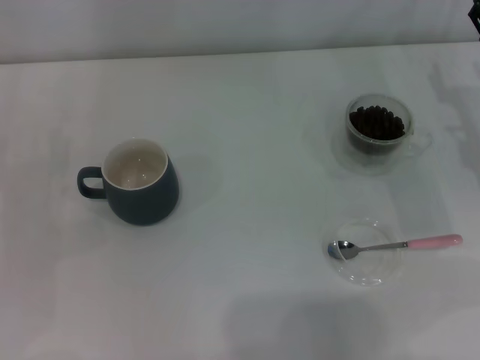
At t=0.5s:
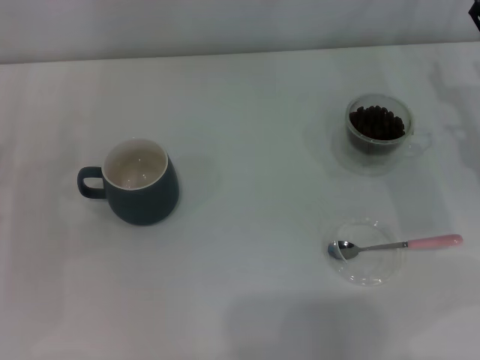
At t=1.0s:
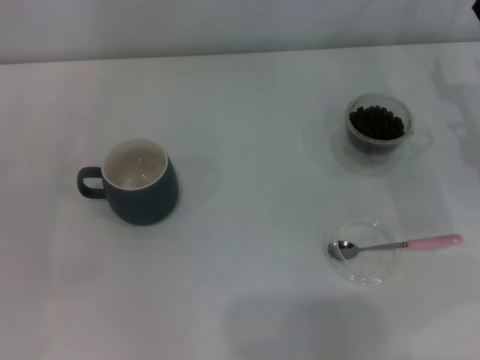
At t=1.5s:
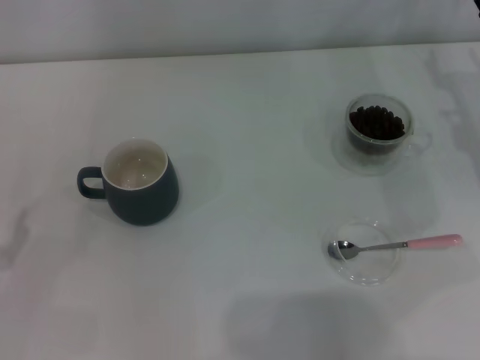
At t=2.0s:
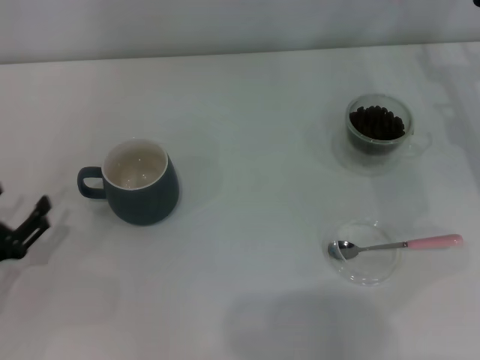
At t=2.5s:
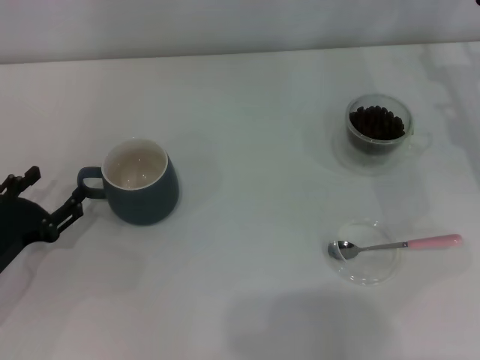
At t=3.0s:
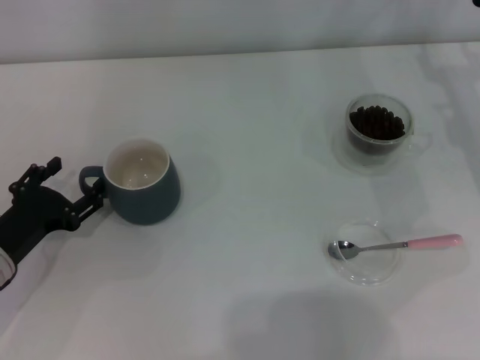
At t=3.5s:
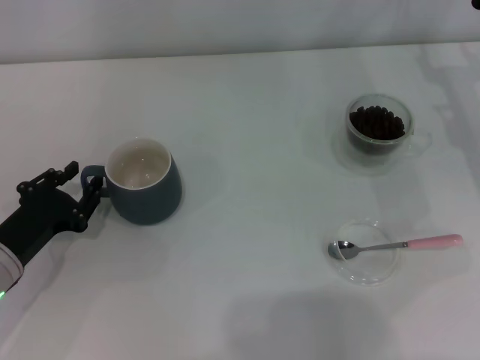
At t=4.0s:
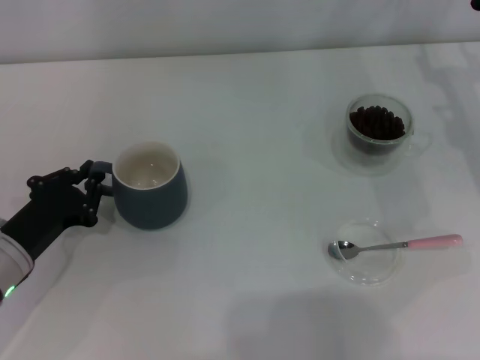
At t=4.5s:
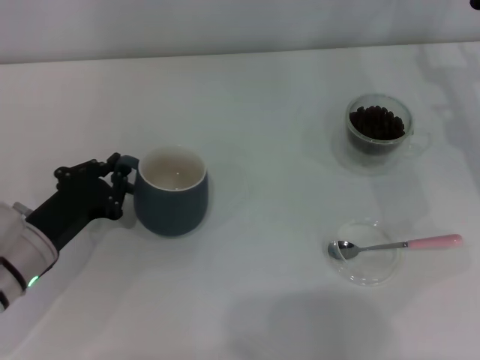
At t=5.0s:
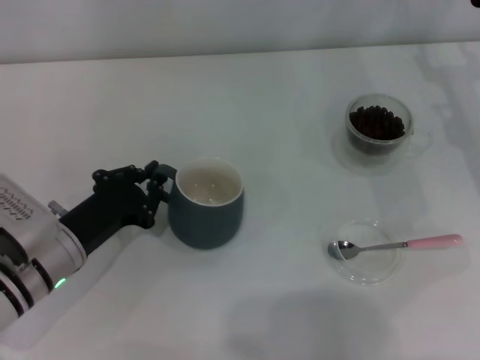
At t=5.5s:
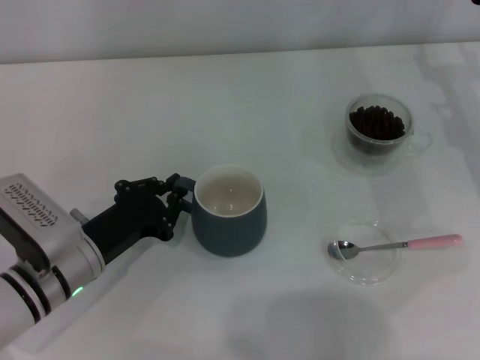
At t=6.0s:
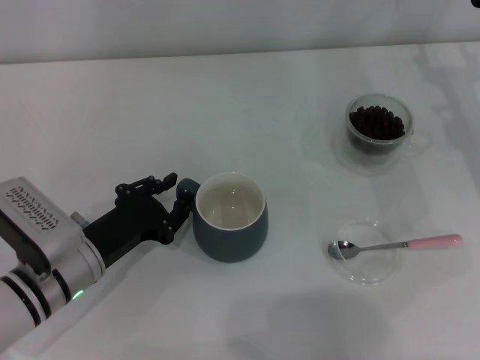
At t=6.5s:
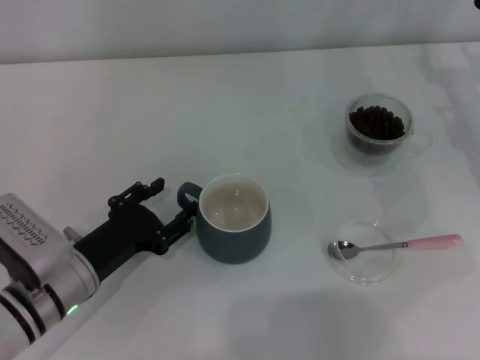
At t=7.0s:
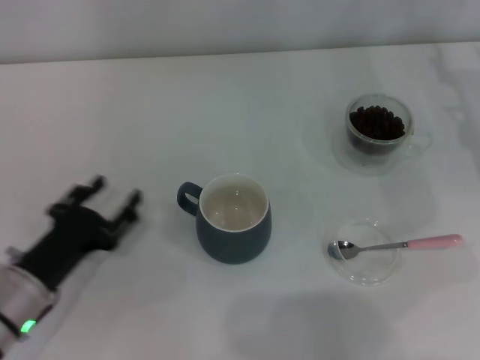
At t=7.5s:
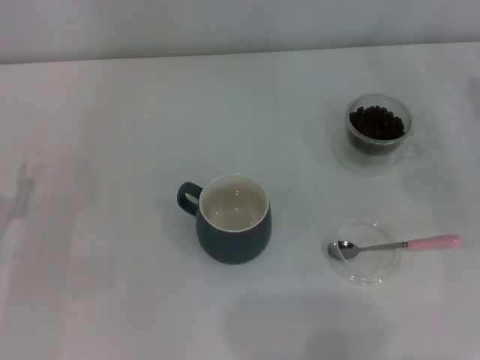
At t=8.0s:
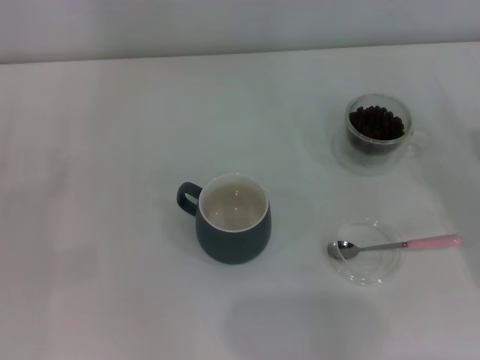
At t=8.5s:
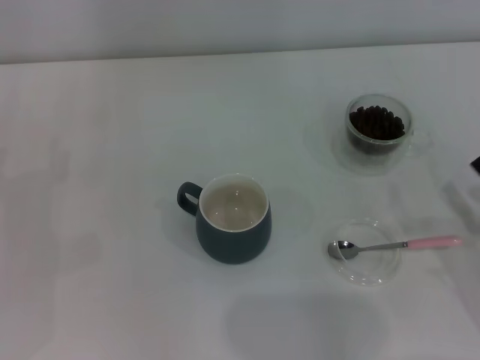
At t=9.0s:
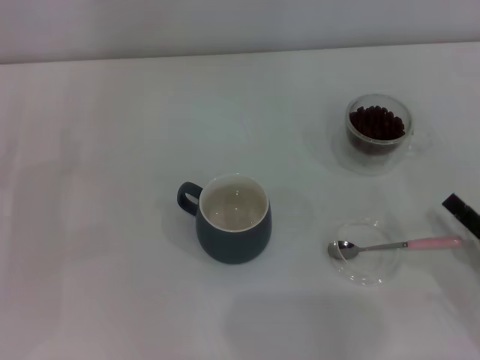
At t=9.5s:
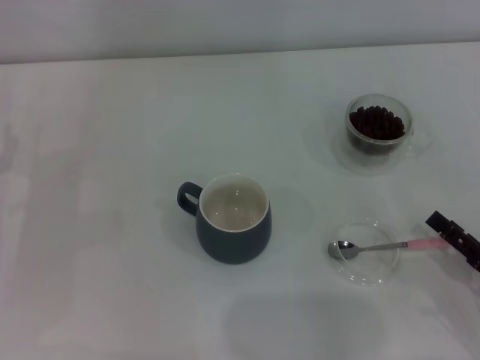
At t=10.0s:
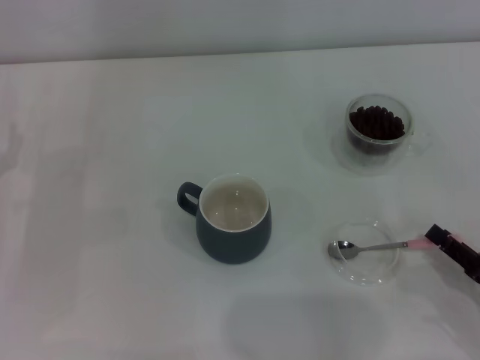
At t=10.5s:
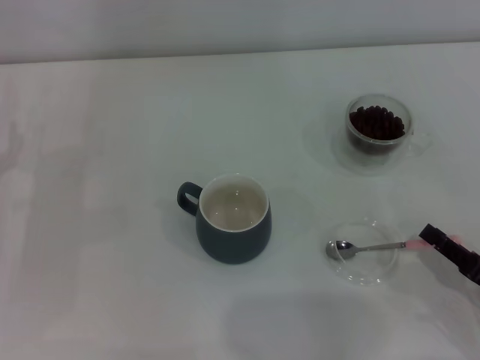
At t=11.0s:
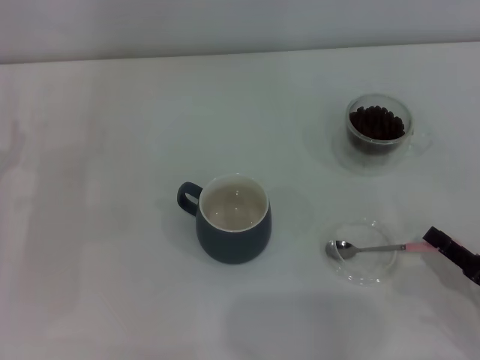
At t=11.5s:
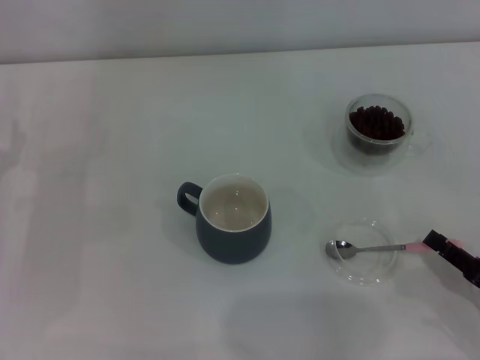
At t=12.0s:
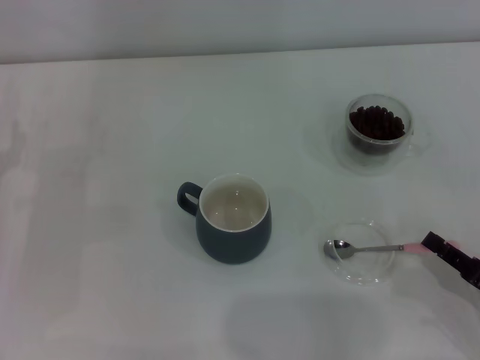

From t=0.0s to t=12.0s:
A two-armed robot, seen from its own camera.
Task of the whole recording: Use a pink spoon to take out the coffee beans from the glass and pour them into the gray cup.
Step, from t=0.0s to t=6.5s: Move the cup to the center of view with the left gripper.
From t=0.0s to t=2.0s: The left gripper travels backward by some 10 cm.
From t=2.0s to t=4.0s: The left gripper is displaced to the right and forward by roughly 10 cm, and closes up.
From t=4.0s to t=6.0s: The left gripper travels to the right by some 5 cm.
From t=6.0s to t=8.0s: The right gripper heads backward and downward, covering about 15 cm. The left gripper shifts about 15 cm to the left, and opens up.
From t=8.0s to t=10.0s: The right gripper shifts roughly 10 cm backward.
From t=10.0s to t=12.0s: The right gripper closes its fingers.

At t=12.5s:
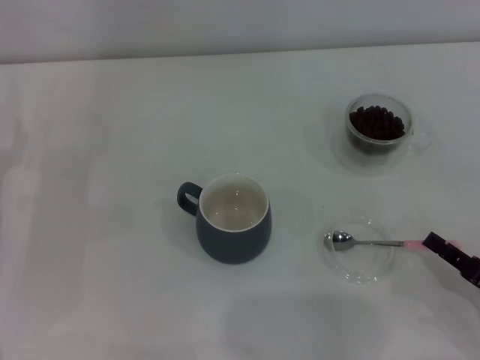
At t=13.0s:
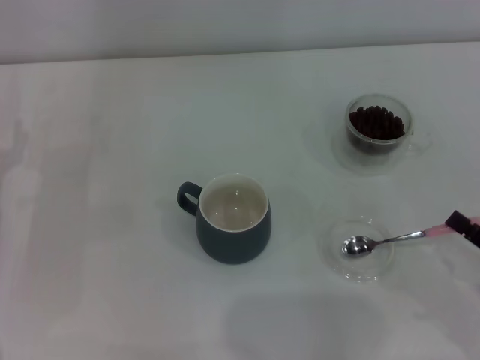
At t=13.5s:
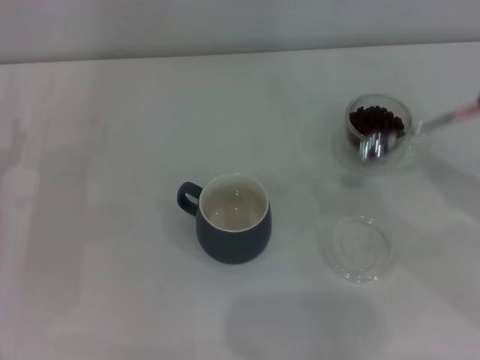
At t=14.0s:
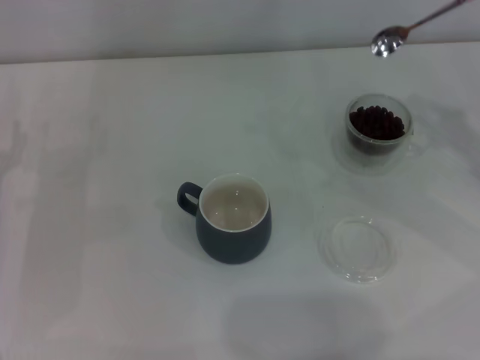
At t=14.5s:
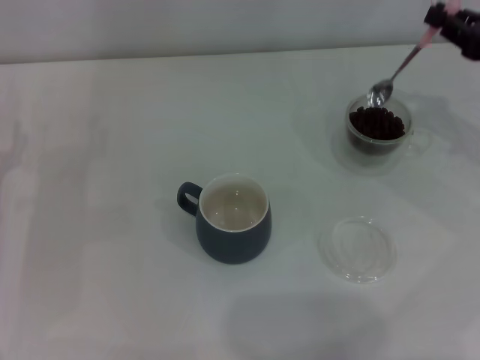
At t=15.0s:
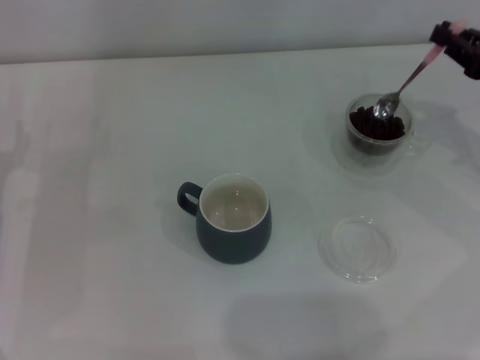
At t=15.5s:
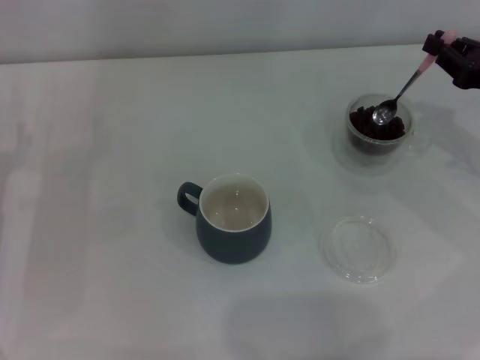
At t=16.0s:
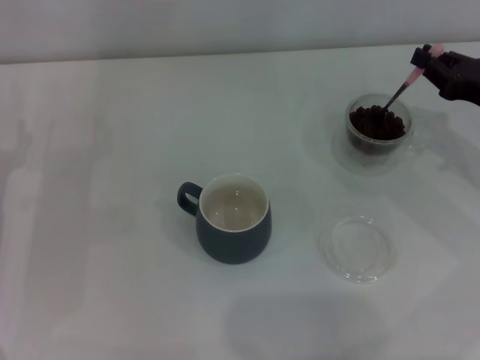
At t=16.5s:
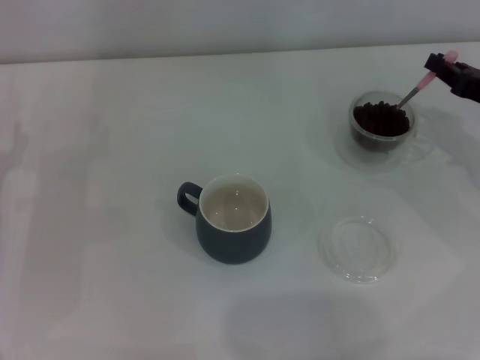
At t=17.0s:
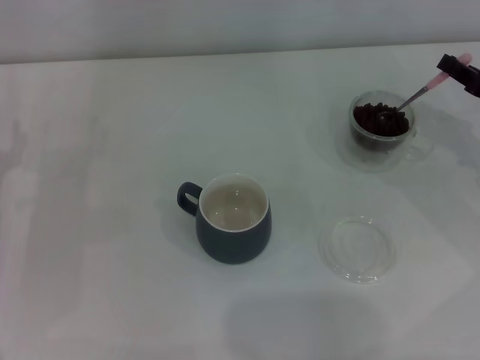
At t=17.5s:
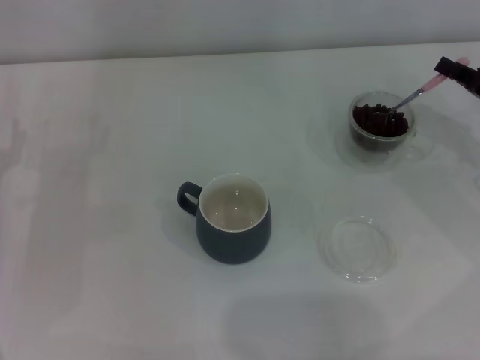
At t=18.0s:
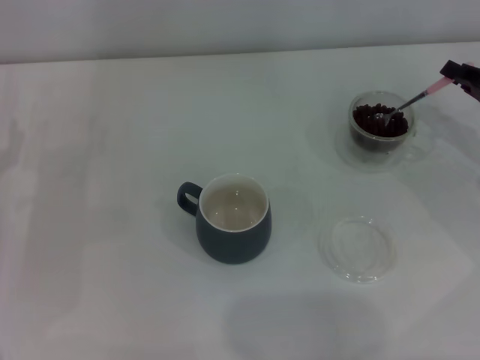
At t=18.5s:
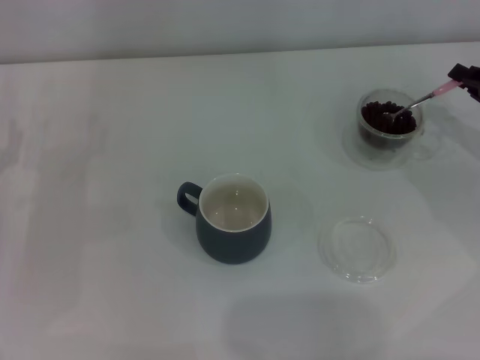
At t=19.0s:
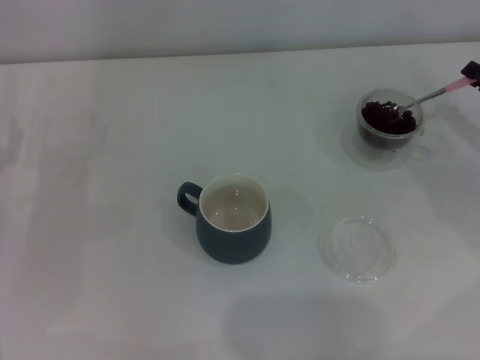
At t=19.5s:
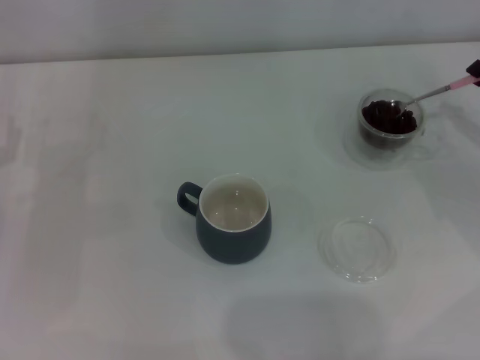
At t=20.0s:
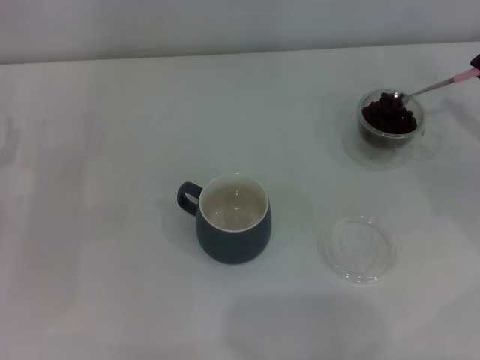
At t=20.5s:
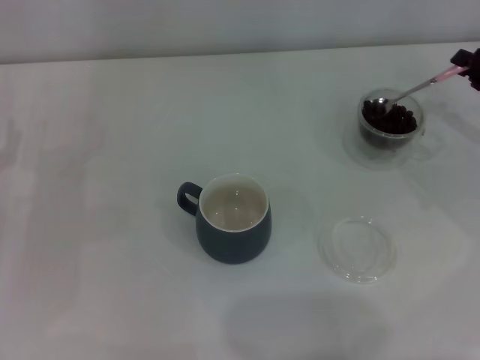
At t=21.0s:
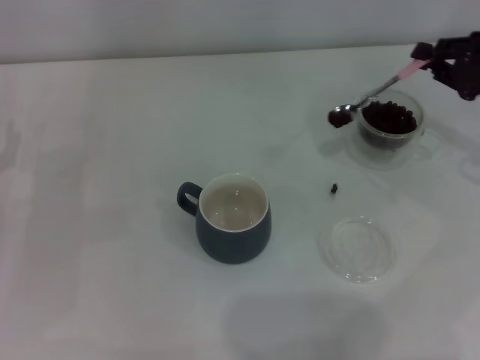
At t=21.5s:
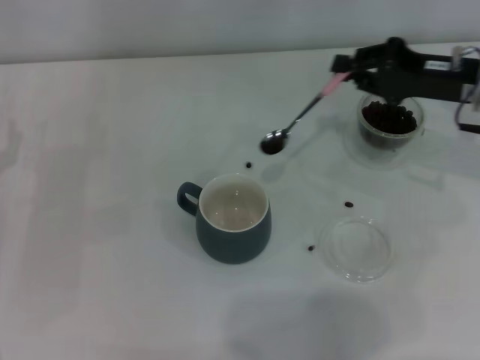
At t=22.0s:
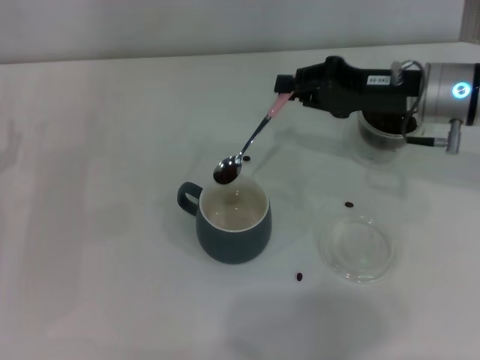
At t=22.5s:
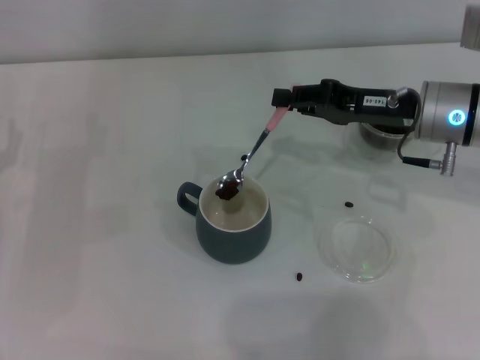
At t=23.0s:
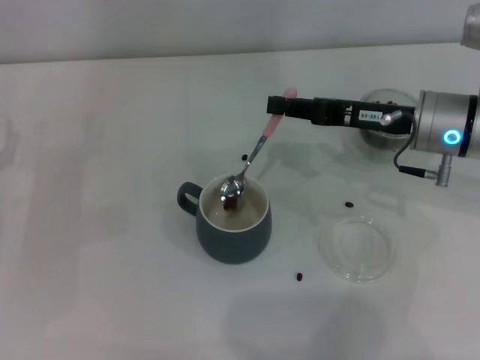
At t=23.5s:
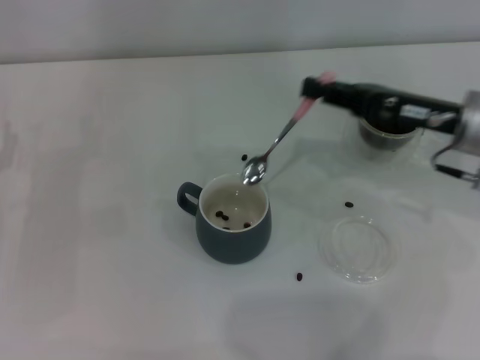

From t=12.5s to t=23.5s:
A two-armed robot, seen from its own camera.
Task of the whole recording: Use a pink spoon to take out the coffee beans from the glass and pour them into the gray cup.
Step, from t=13.5s to t=23.0s: Scoop a spoonful of beans into the cup with the right gripper.
From t=12.5s to t=14.5s: The right gripper shifts approximately 25 cm forward and upward.
From t=14.5s to t=16.0s: The grippers move only a little.
From t=18.0s to t=20.0s: The grippers make only small movements.
From t=20.0s to t=21.5s: The right gripper travels to the left and forward by approximately 10 cm.
From t=21.5s to t=23.5s: The right gripper changes place by some 5 cm.

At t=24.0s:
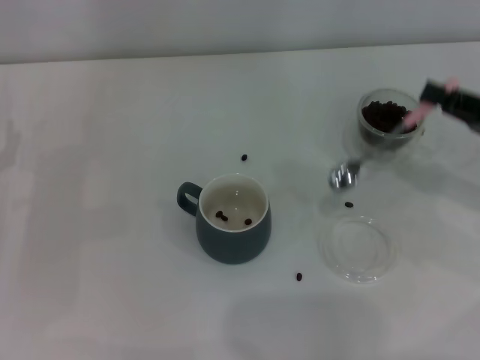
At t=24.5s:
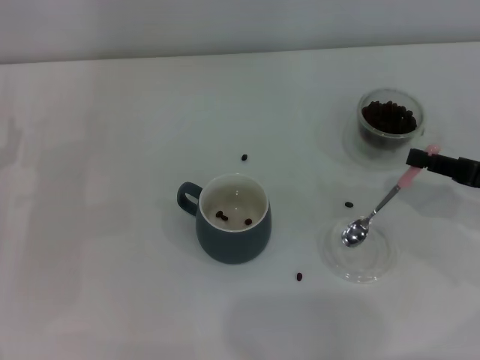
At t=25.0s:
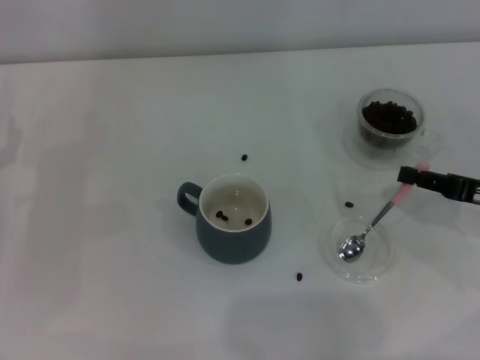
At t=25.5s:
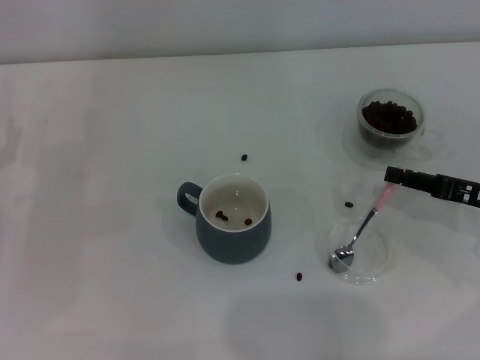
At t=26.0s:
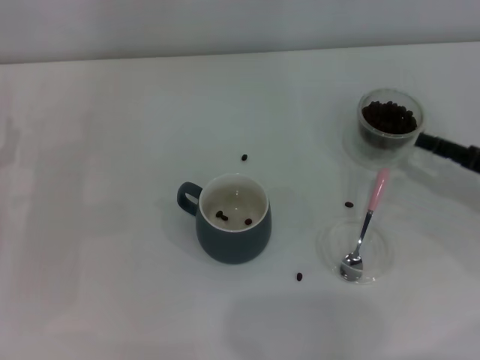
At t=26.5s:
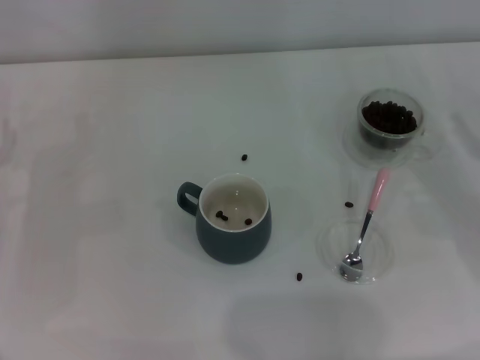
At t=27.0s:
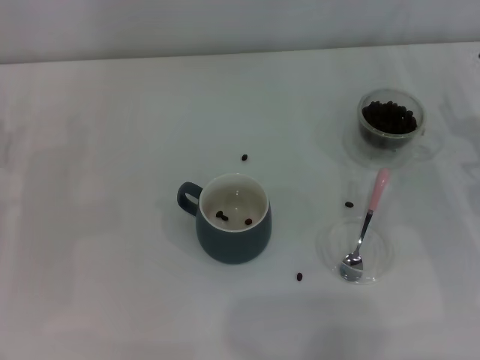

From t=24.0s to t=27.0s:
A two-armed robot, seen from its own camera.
Task of the whole recording: Use a pink spoon to take out the coffee beans from the glass and pour them into the gray cup.
Step, from t=24.0s to t=25.5s: Place the spoon back in its original place with the right gripper.
From t=24.0s to t=25.5s: The right gripper heads downward, covering roughly 5 cm.
From t=25.5s to t=27.0s: The right gripper opens.
